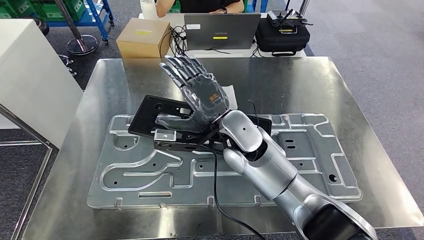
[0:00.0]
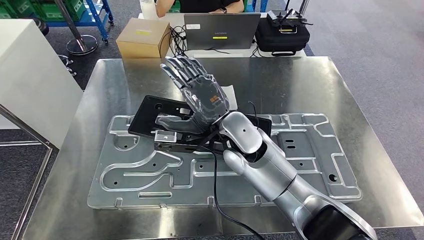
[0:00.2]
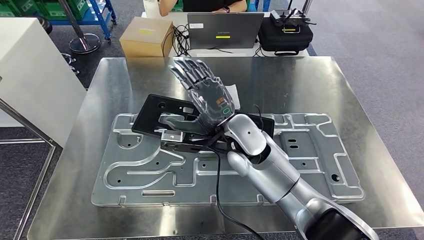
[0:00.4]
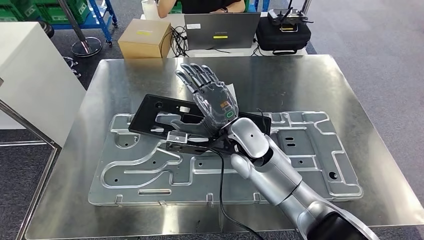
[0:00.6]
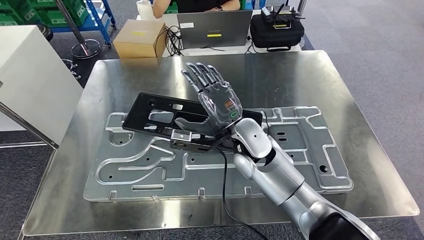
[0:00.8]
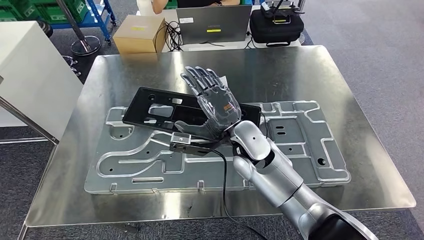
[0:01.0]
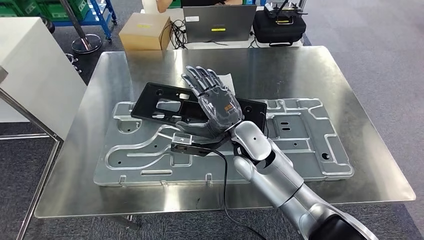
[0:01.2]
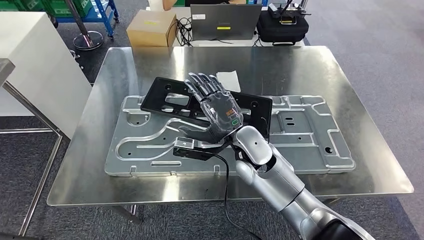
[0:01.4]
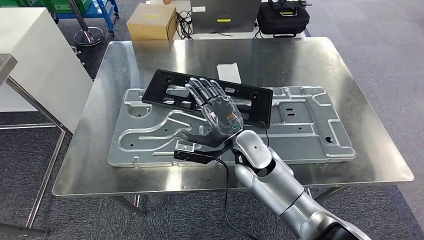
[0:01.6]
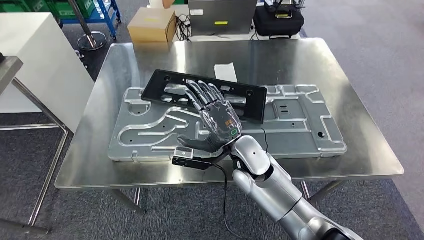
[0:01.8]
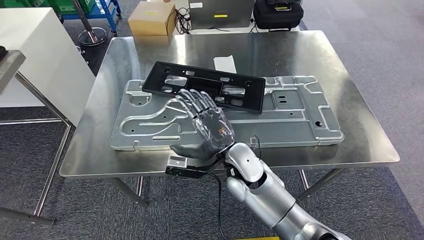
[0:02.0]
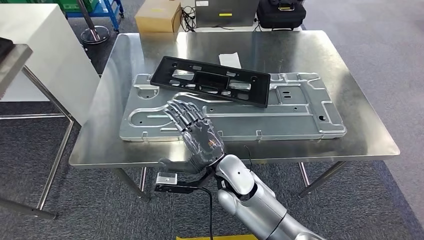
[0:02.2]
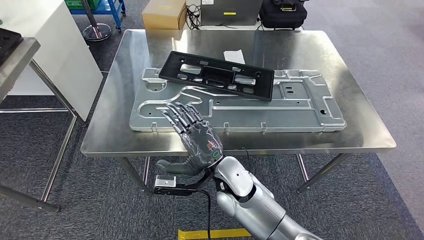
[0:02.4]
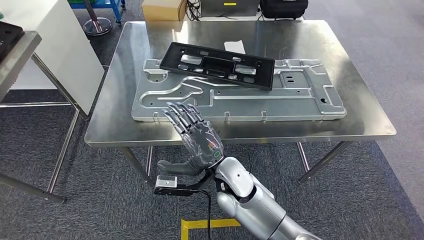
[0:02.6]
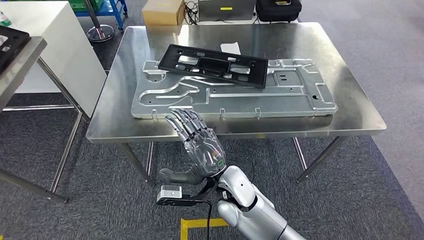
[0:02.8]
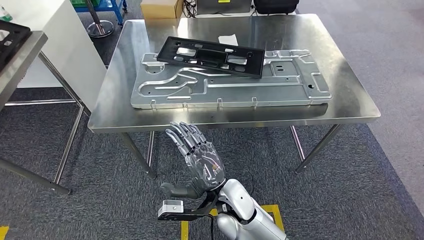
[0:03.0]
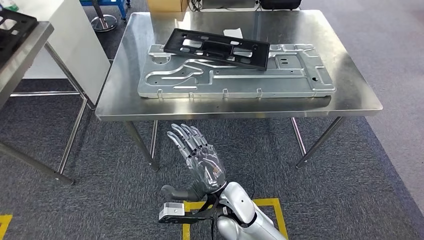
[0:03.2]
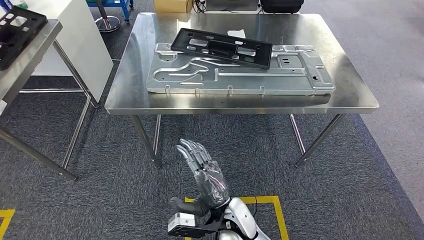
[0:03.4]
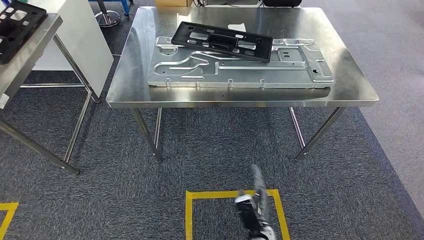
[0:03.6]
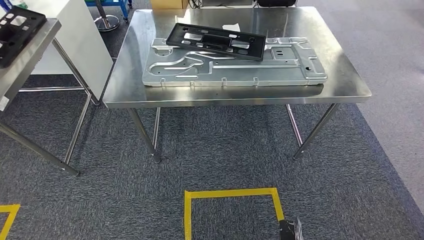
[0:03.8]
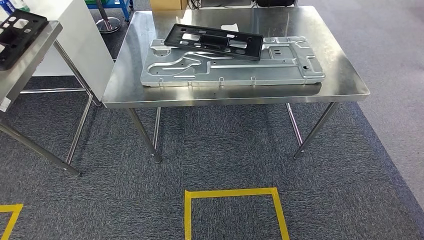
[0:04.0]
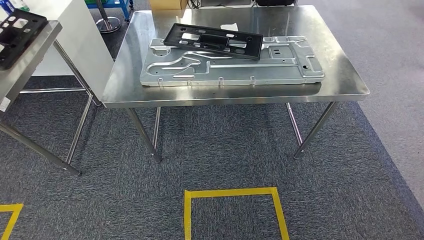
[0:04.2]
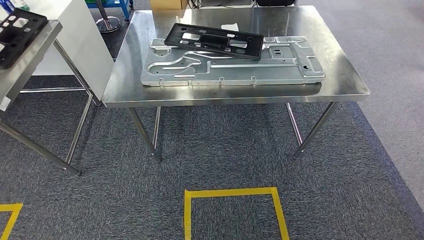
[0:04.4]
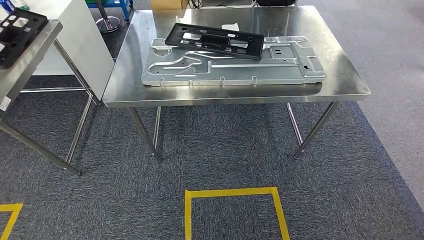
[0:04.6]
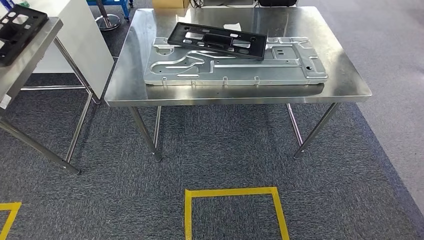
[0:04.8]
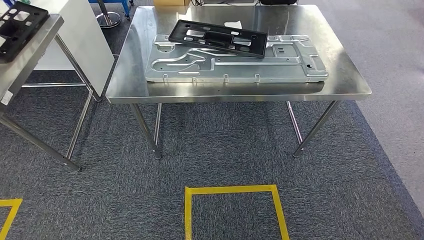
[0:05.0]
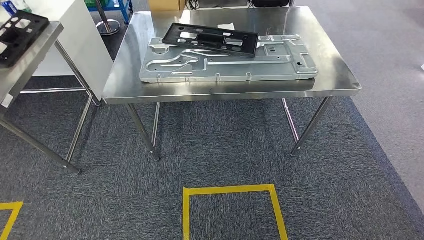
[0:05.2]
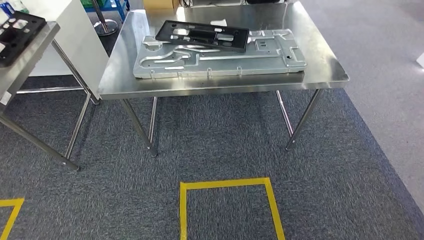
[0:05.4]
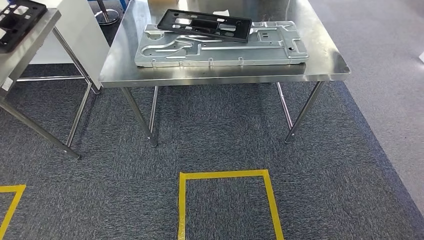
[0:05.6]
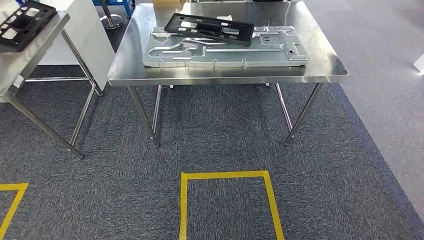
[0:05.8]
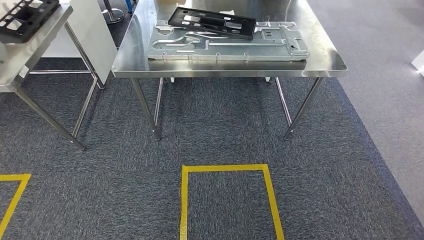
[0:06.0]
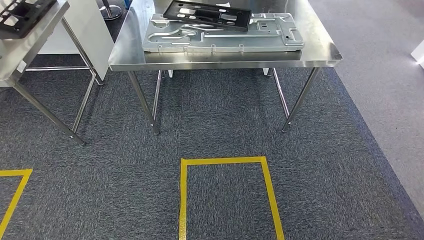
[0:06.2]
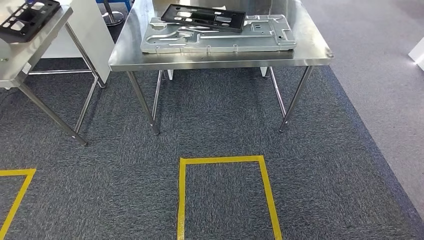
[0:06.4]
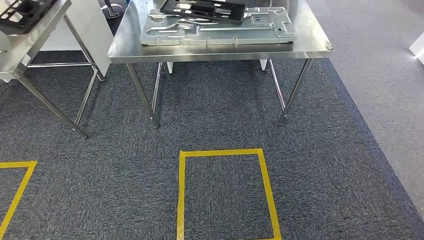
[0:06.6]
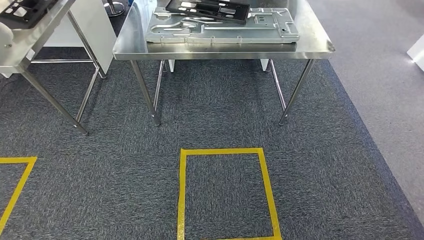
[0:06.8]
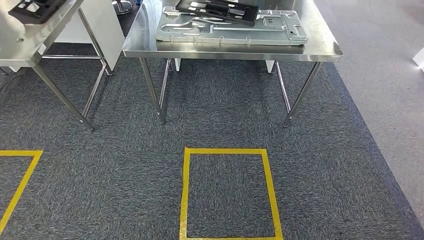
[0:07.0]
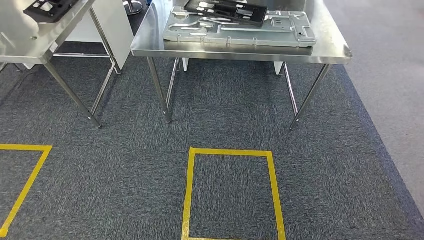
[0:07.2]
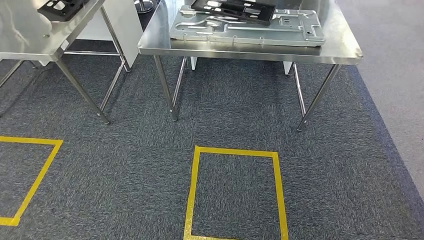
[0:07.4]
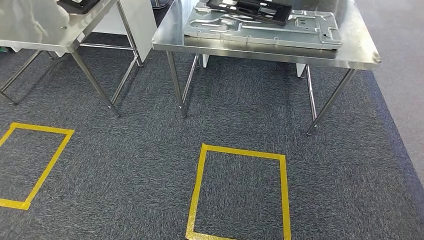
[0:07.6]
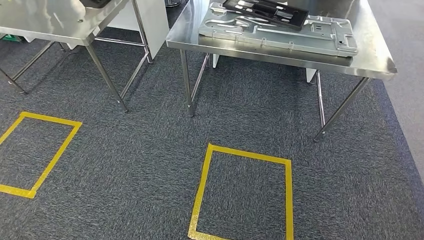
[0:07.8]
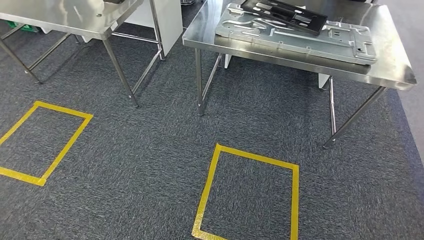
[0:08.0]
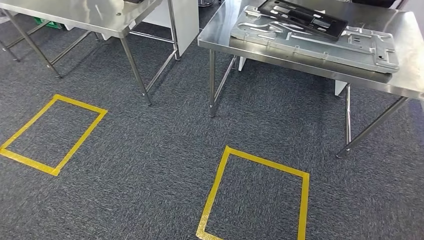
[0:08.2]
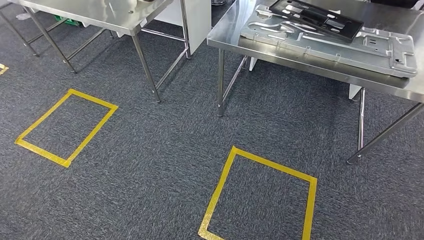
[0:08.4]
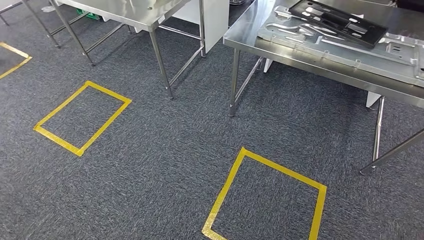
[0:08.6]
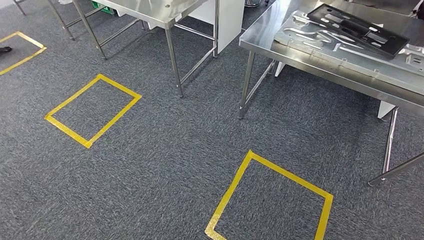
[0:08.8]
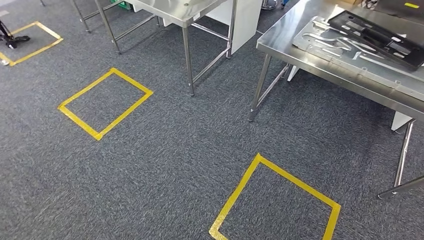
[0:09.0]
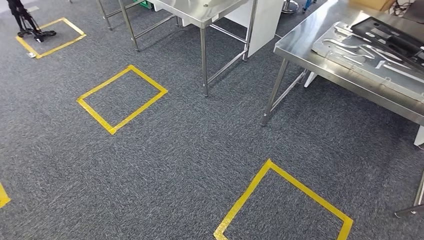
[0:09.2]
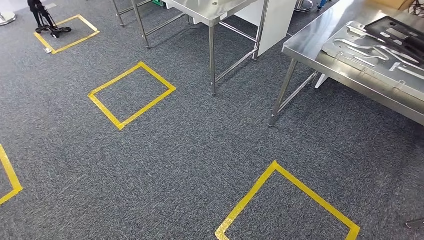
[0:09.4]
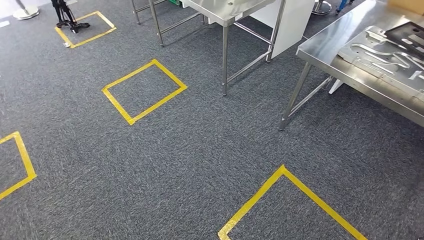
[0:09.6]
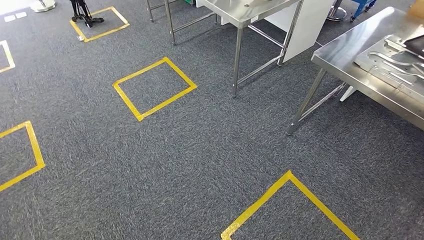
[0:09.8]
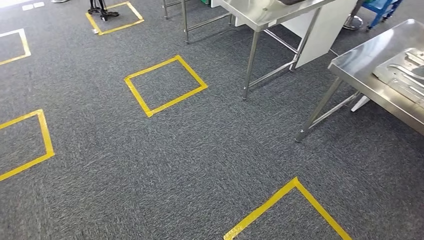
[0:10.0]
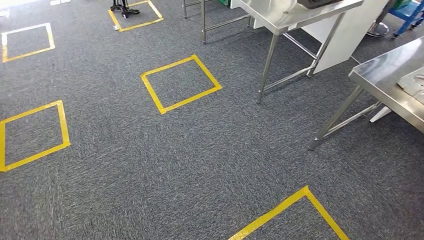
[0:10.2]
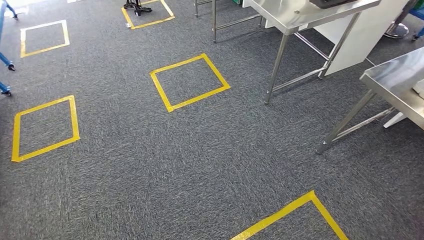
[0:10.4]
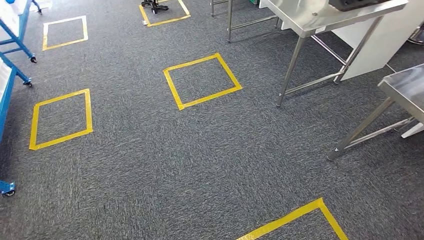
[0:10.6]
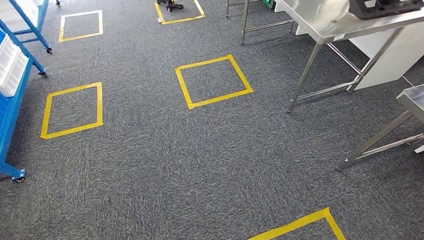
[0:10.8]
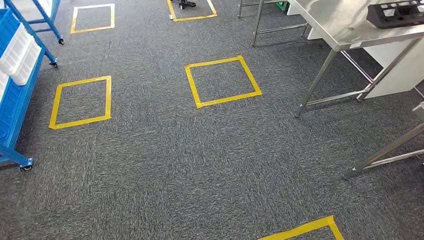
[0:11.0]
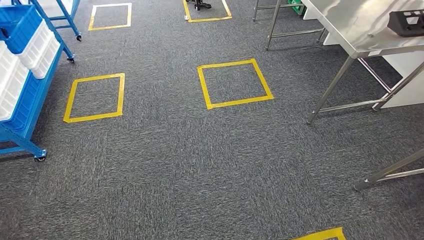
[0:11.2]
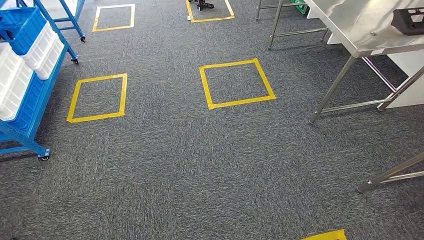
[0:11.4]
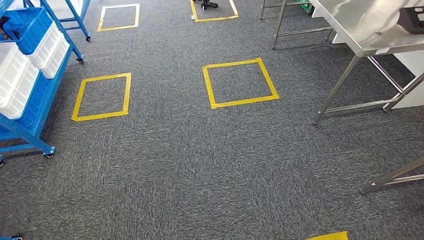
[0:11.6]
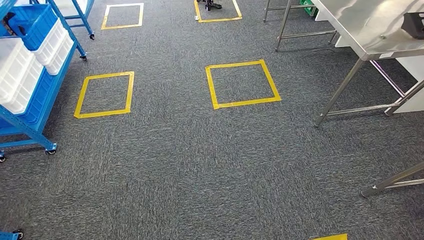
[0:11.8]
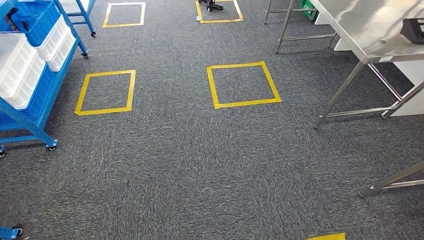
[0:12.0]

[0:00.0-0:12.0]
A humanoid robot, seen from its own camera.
Step, 0:00.0 to 0:05.2: Insert the large material into the corresponding slot on the workbench.

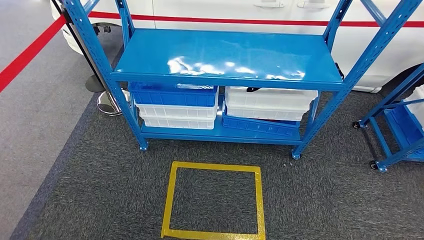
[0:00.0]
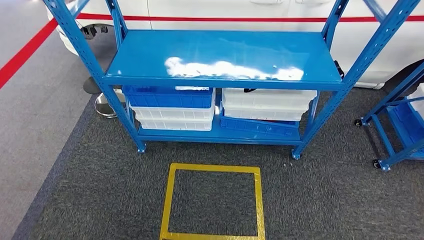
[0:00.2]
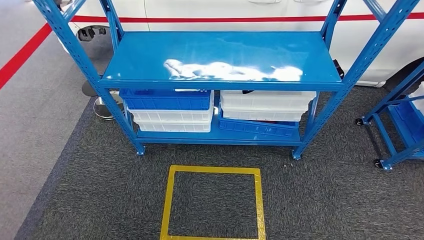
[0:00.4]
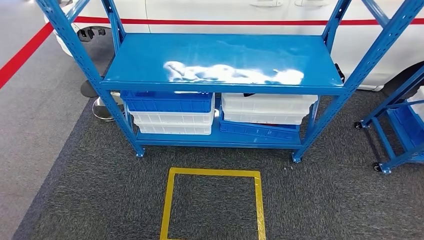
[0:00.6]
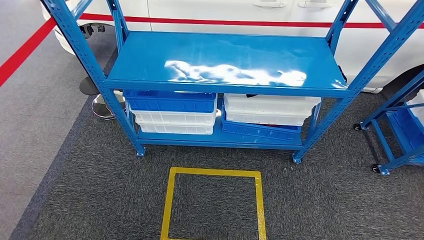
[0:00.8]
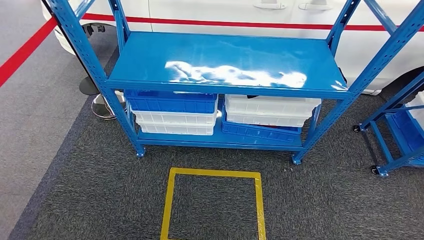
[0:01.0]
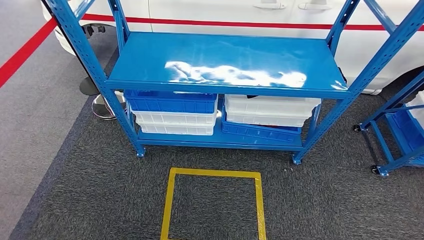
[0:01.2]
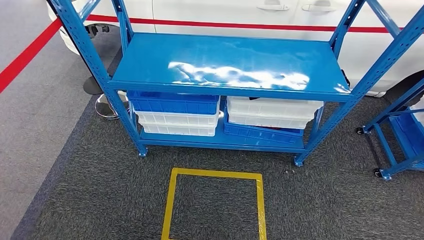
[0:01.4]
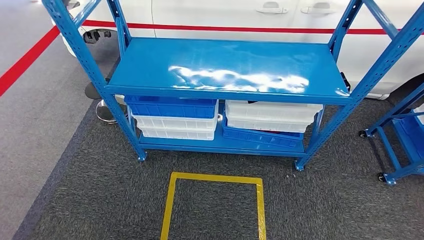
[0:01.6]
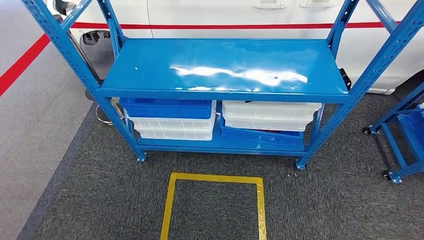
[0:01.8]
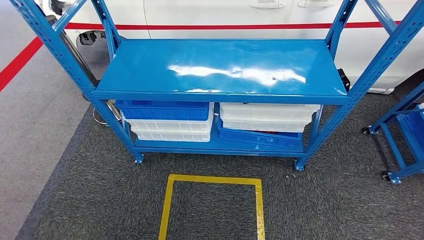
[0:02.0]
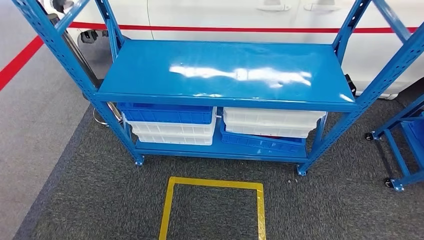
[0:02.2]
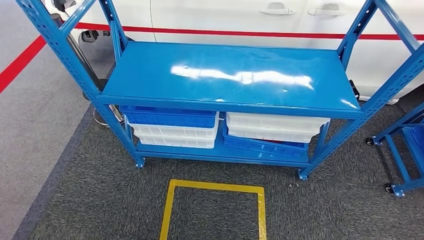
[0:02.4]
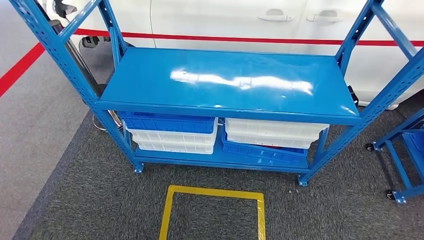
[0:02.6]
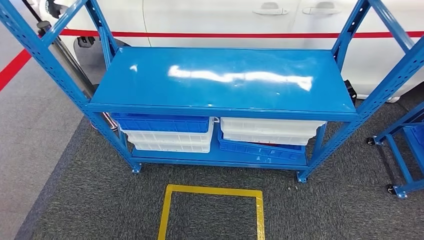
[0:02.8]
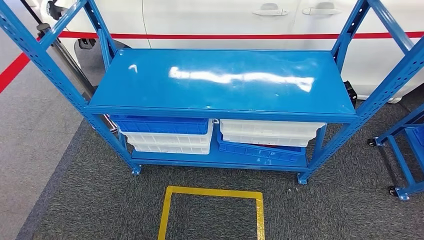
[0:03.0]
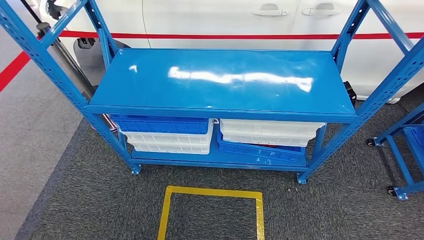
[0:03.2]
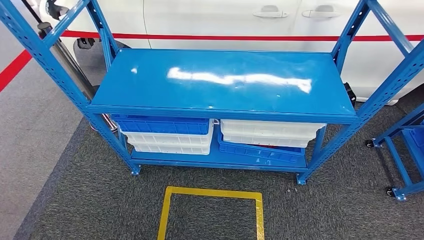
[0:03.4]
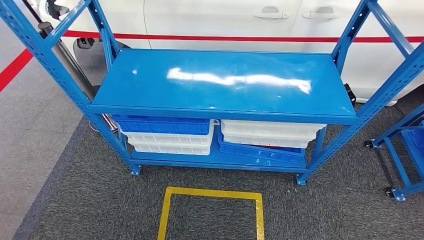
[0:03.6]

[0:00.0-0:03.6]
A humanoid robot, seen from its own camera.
Step, 0:00.0 to 0:03.6: Move to the initial position of the shelf.
